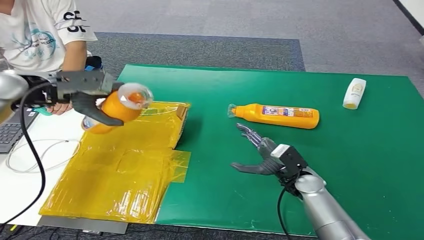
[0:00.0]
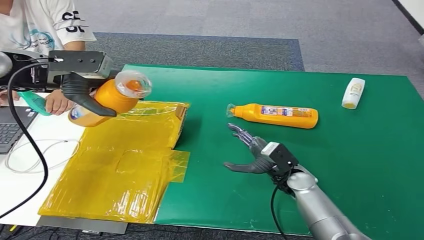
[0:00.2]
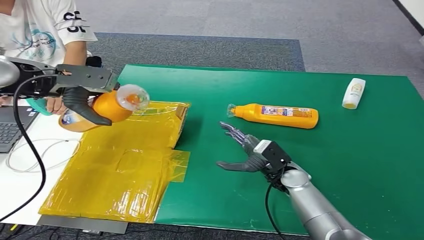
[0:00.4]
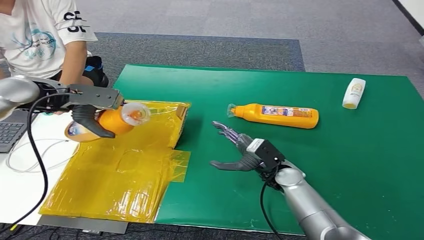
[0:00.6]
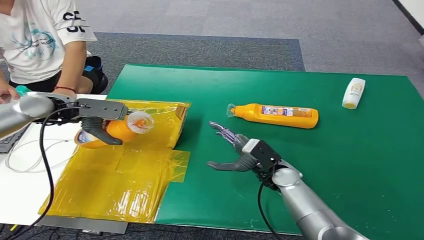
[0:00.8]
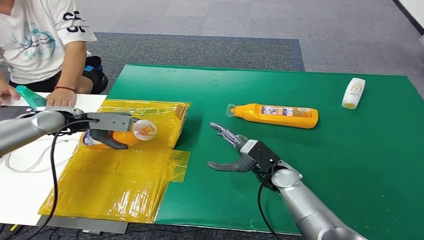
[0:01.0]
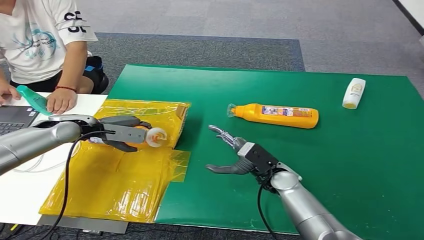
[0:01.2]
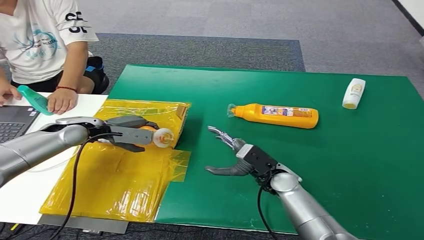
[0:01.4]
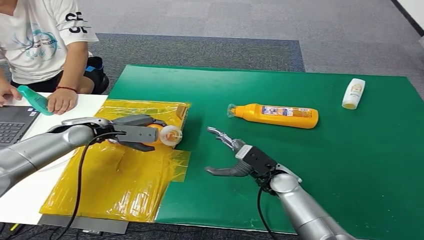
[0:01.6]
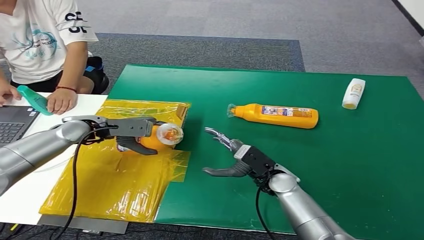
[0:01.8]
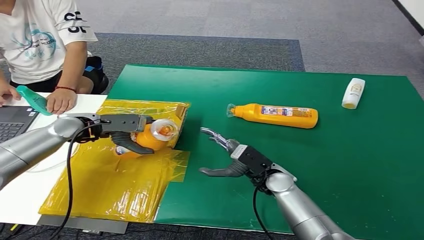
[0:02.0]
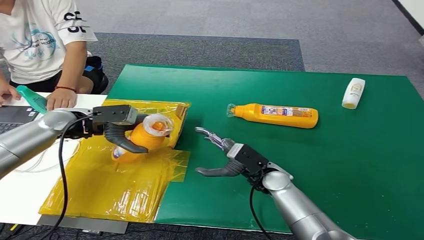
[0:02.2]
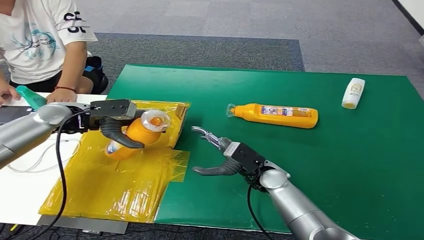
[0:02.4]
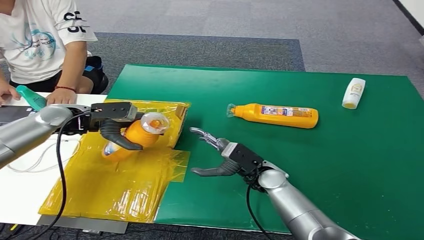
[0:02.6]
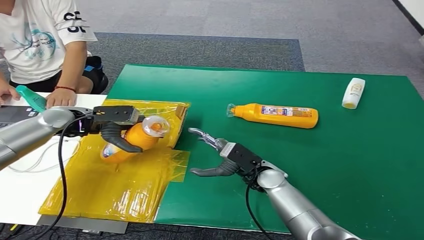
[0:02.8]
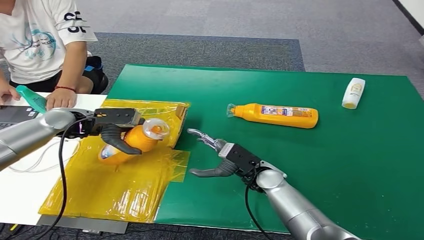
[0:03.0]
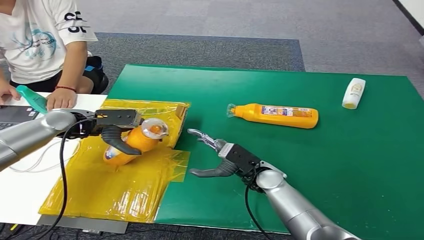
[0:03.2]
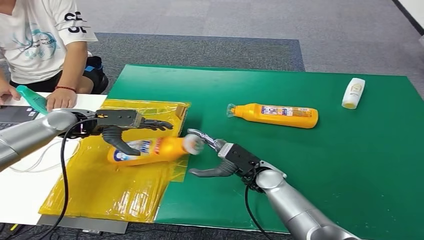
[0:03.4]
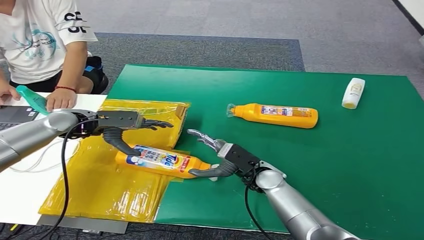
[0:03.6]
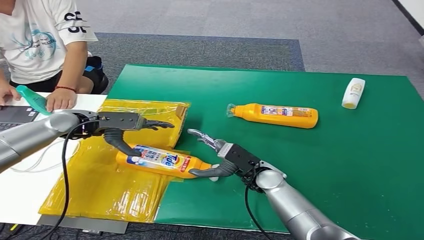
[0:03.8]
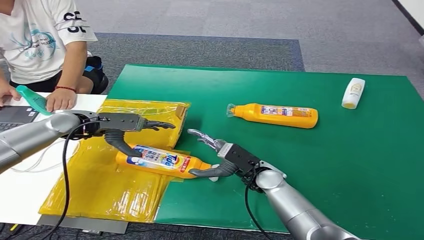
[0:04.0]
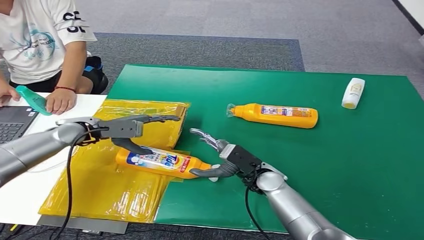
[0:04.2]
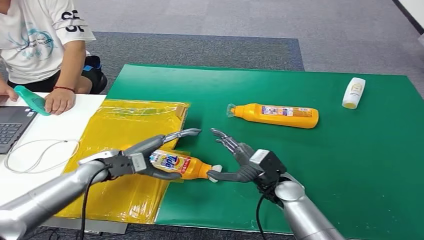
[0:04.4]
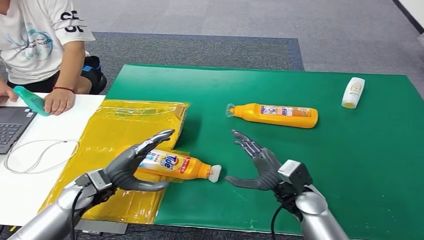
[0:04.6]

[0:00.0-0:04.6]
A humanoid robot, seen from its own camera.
Step, 0:00.0 to 0:04.6: Turn the bottle to the front side.

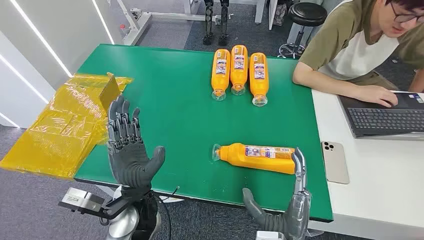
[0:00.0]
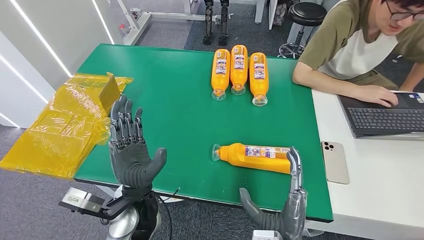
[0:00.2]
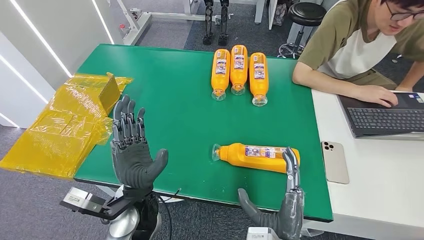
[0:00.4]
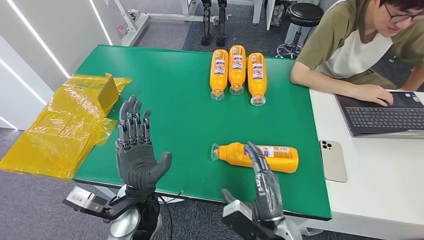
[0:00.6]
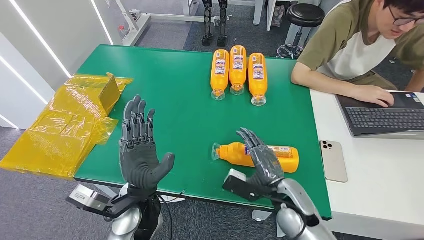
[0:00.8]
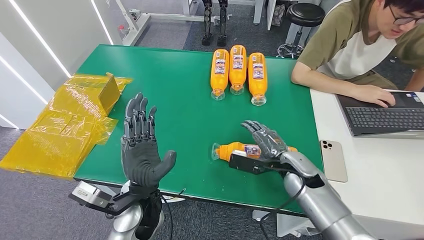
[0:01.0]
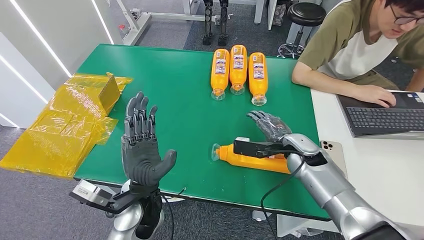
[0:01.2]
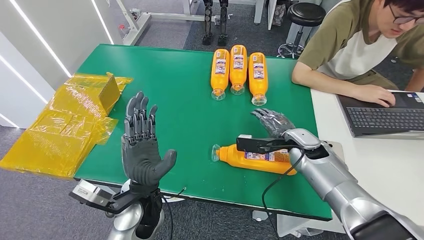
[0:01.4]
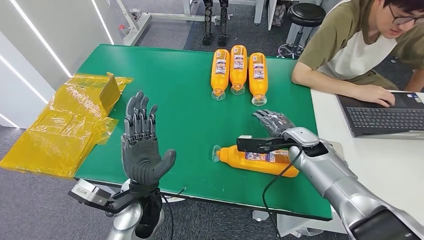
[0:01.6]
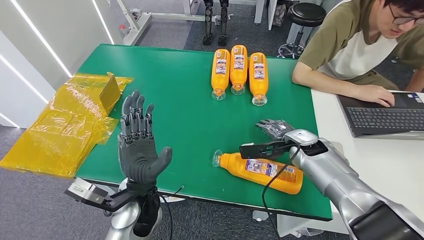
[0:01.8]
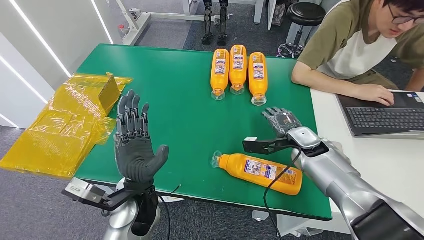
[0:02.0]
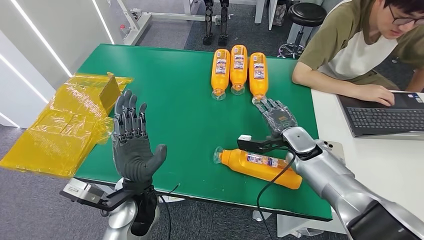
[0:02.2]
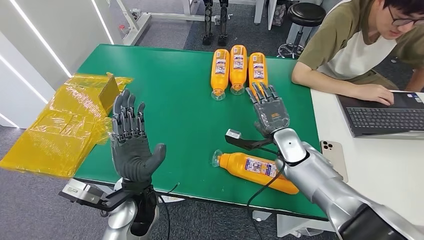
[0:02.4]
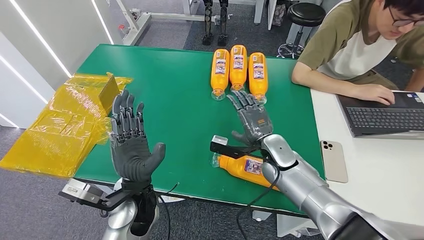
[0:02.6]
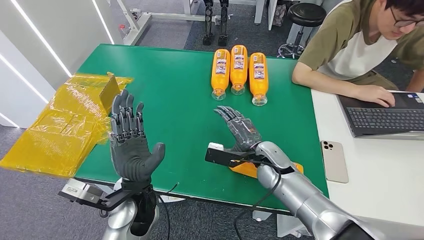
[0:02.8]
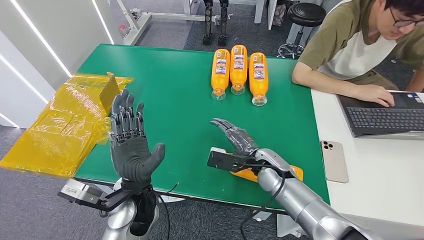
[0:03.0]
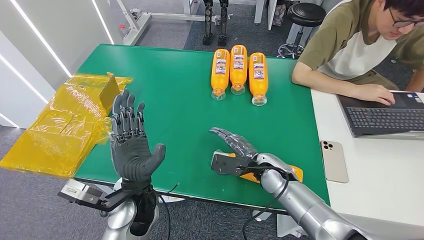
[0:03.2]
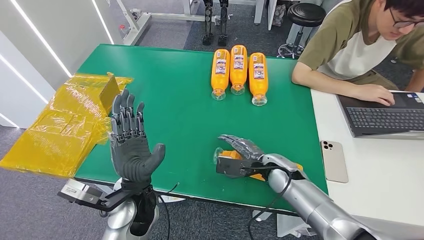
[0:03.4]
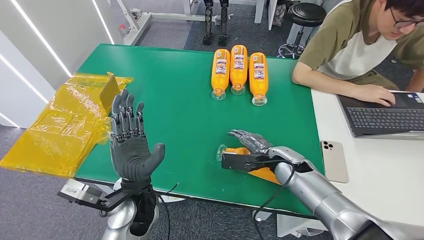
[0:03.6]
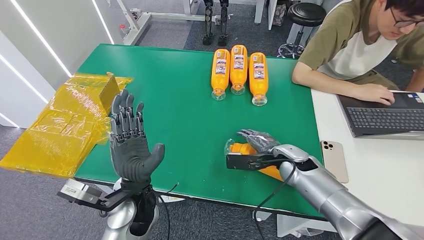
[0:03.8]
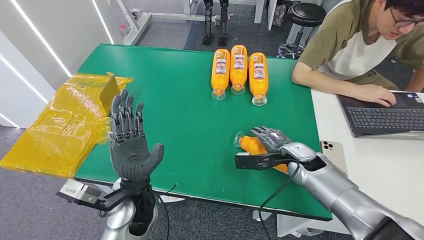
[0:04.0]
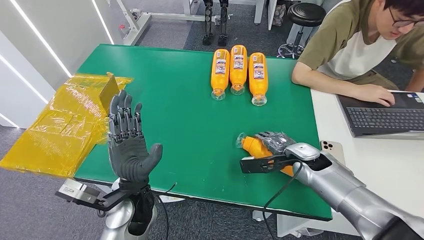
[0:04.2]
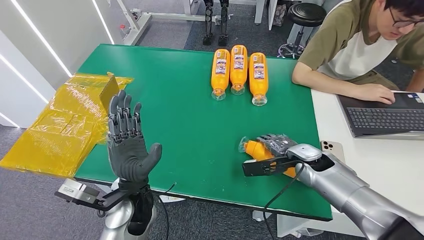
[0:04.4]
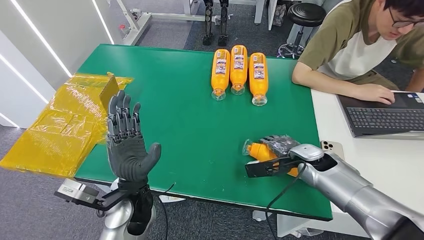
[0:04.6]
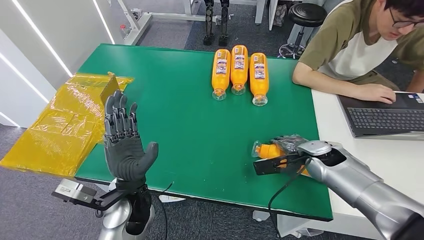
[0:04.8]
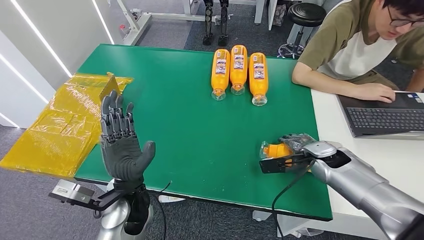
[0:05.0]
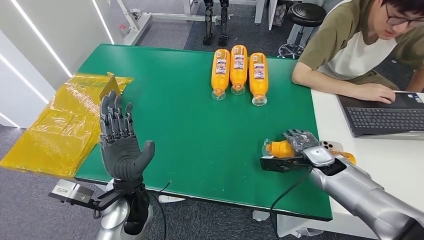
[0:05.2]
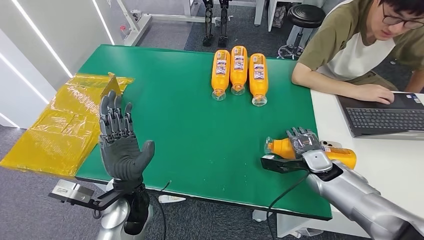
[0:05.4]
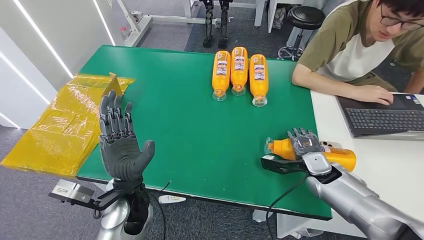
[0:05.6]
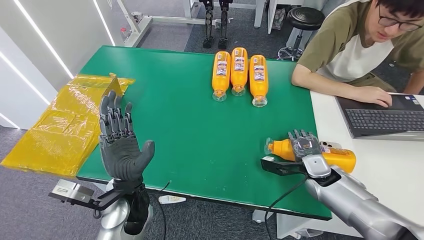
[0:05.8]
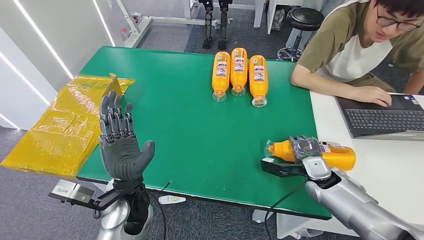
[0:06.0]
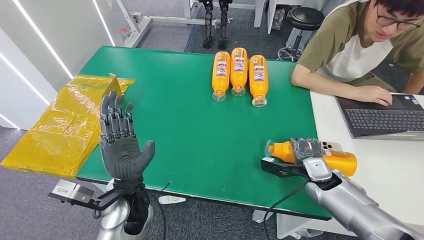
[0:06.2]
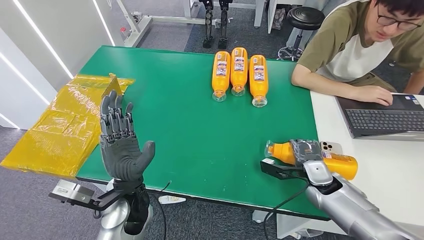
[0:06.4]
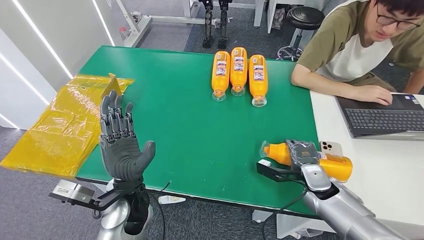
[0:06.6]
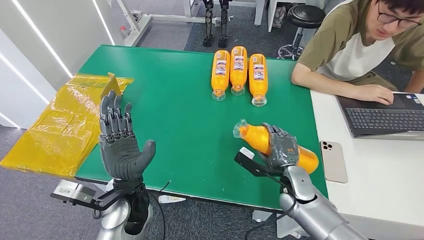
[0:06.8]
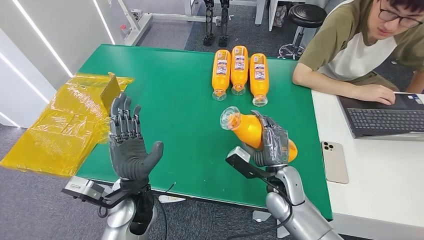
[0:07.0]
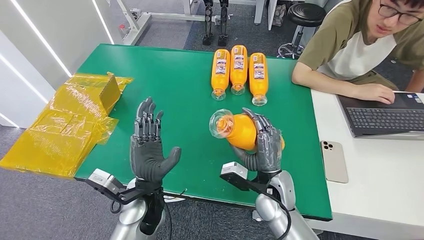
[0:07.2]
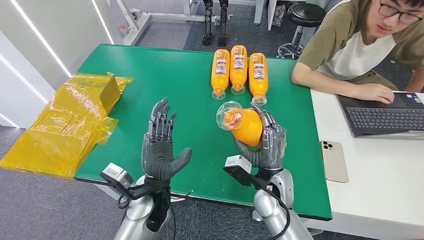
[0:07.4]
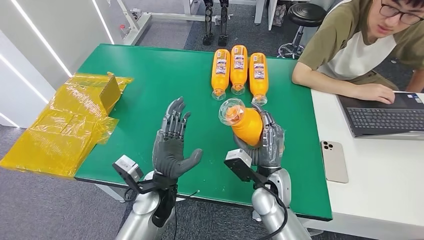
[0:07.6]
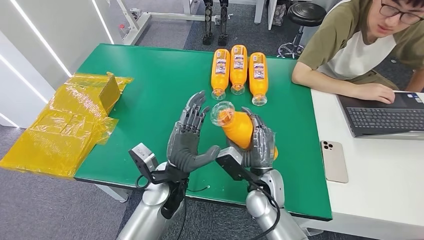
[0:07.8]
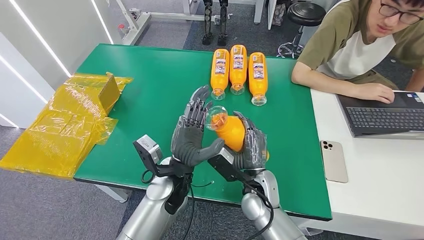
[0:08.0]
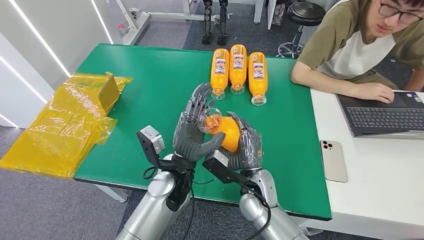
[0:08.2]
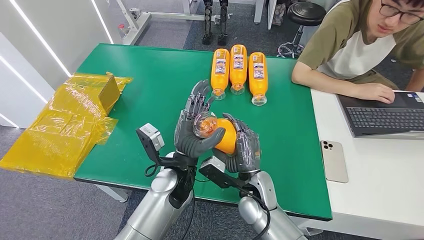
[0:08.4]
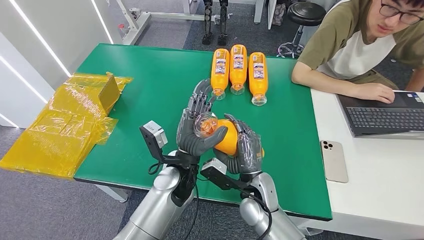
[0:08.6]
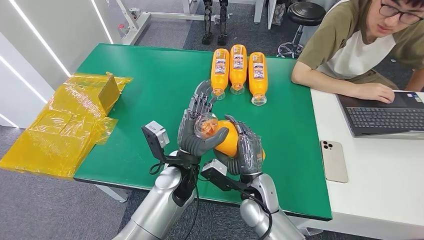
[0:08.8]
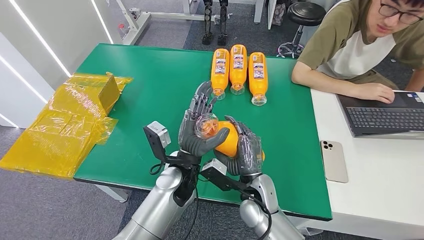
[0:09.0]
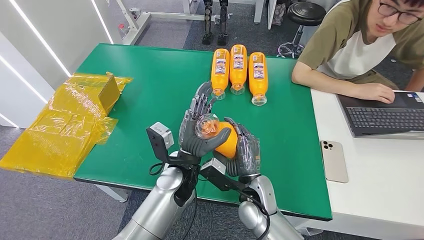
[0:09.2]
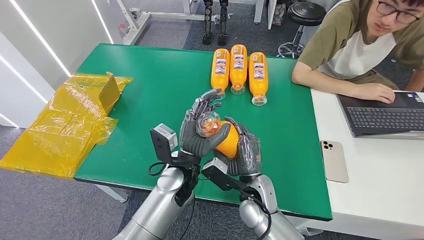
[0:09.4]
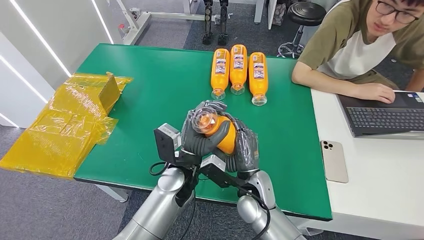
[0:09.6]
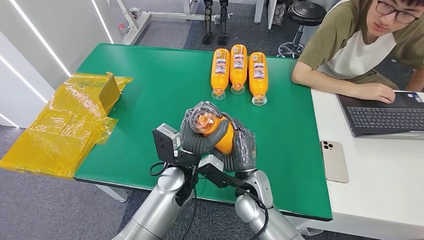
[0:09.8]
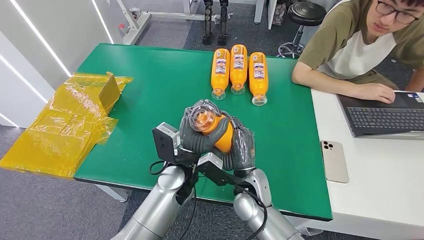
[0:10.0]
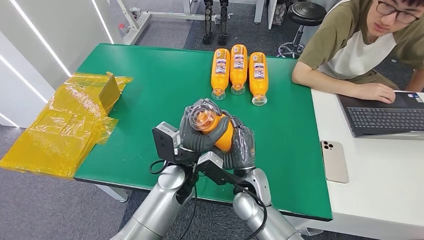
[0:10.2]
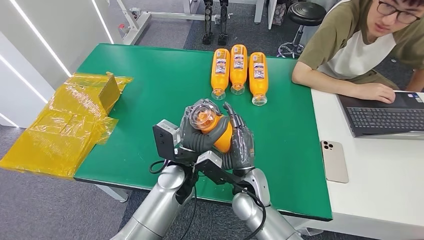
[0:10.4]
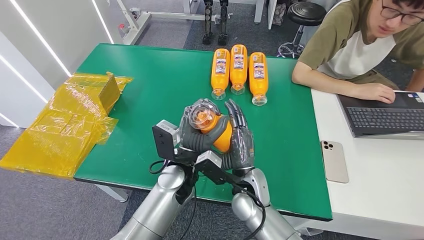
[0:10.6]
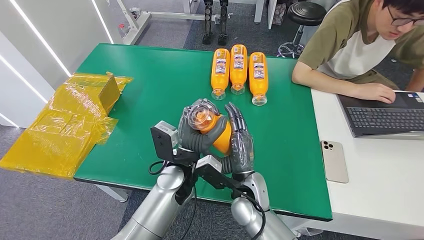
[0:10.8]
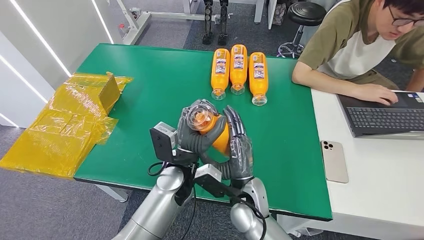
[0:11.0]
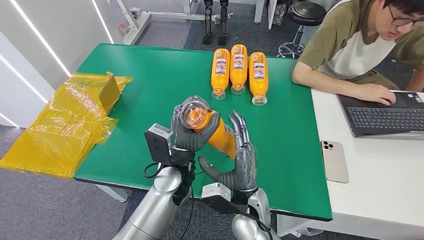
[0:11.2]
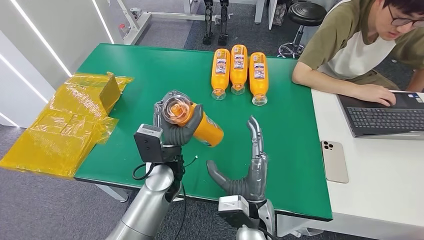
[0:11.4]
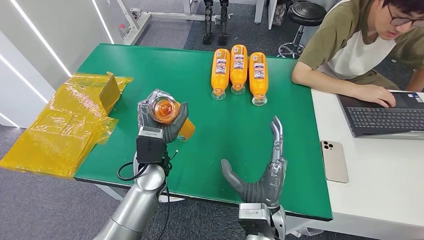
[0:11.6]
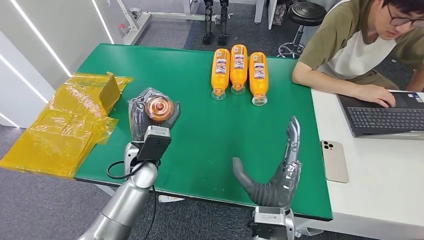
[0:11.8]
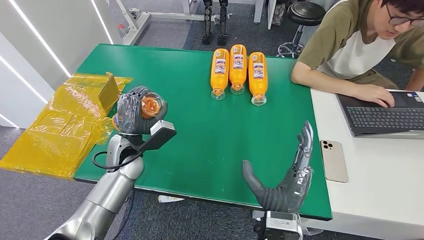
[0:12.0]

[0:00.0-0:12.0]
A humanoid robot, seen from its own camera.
Step, 0:00.0 to 0:06.8: Pick up the bottle from the table.
0:01.6 to 0:03.0: The right hand goes about 10 cm to the left.
0:03.0 to 0:04.4: The right hand travels to the right by approximately 10 cm.
0:07.6 to 0:09.0: The left hand moves roughly 5 cm.
0:09.0 to 0:10.4: The hands move only a little.
0:10.4 to 0:12.0: The right hand moves backward, roughly 10 cm, while the left hand is displaced to the left by approximately 15 cm.
